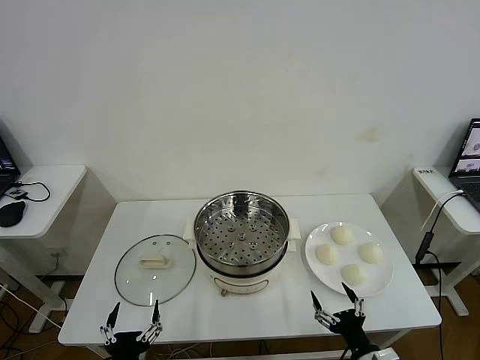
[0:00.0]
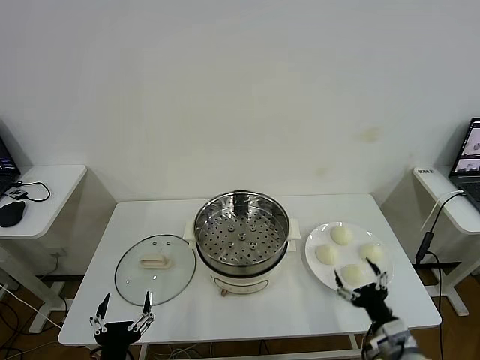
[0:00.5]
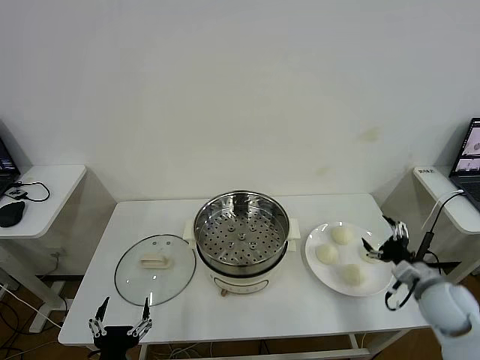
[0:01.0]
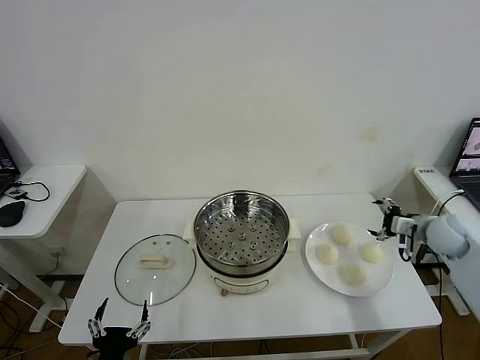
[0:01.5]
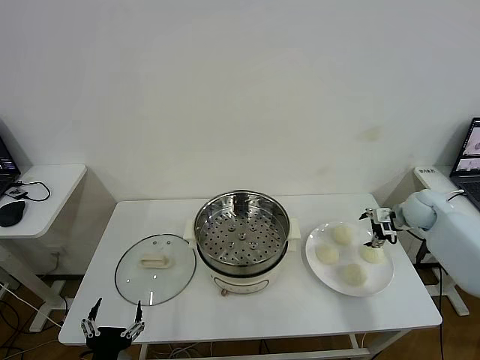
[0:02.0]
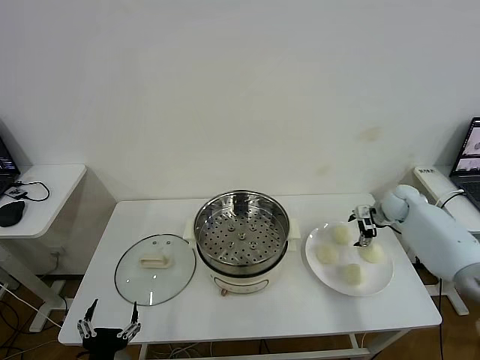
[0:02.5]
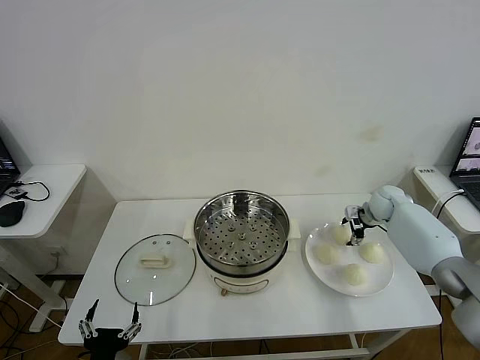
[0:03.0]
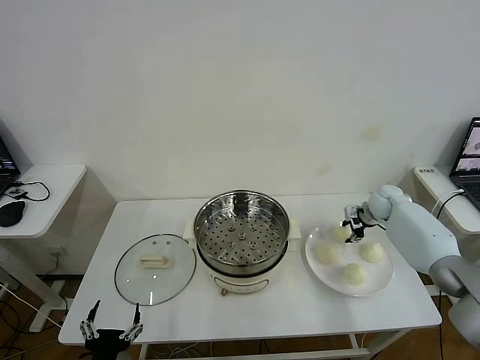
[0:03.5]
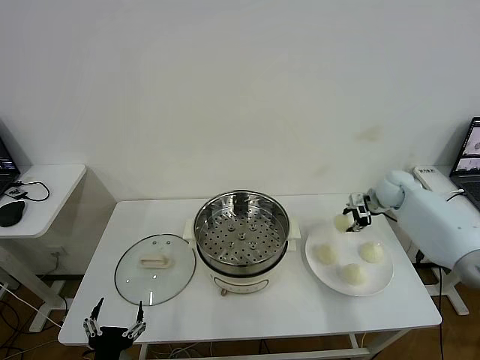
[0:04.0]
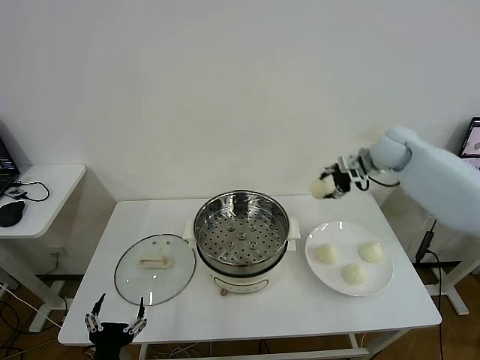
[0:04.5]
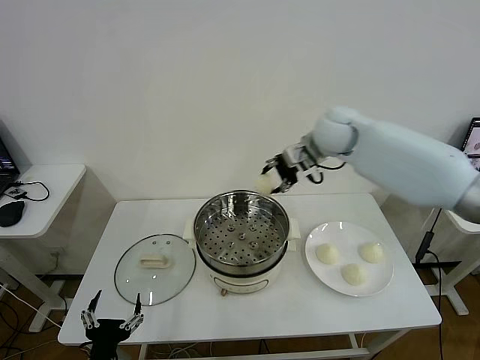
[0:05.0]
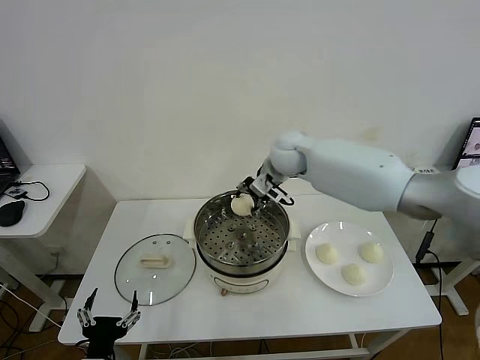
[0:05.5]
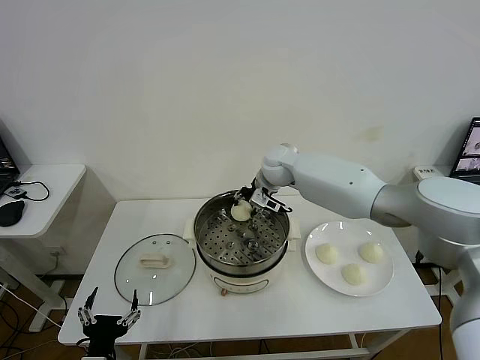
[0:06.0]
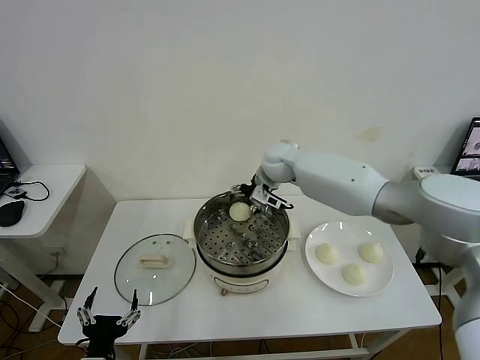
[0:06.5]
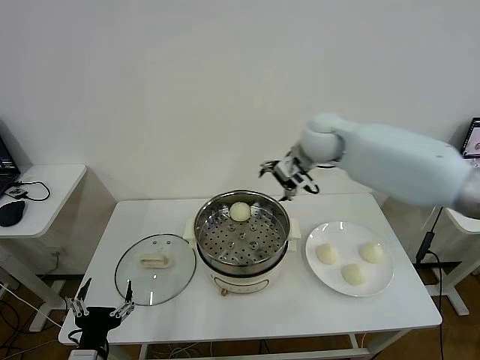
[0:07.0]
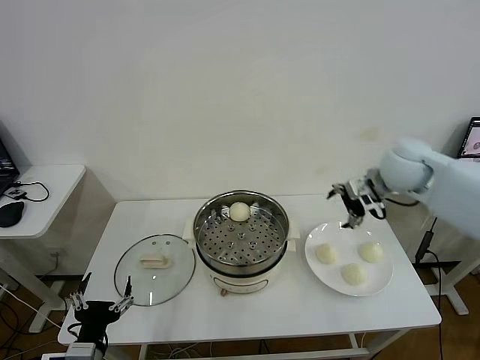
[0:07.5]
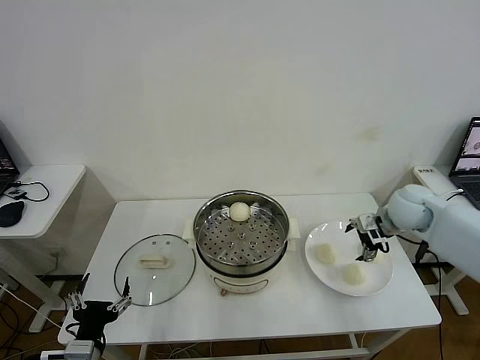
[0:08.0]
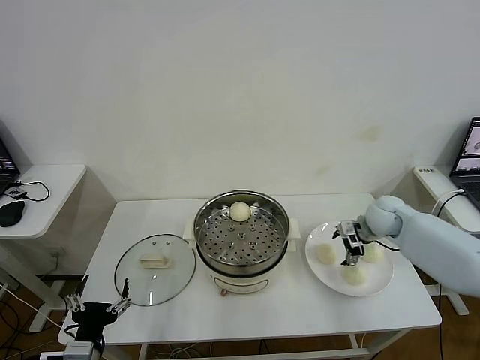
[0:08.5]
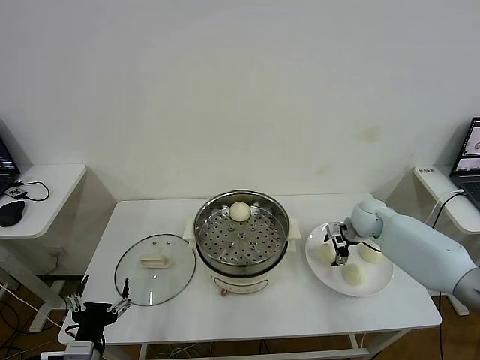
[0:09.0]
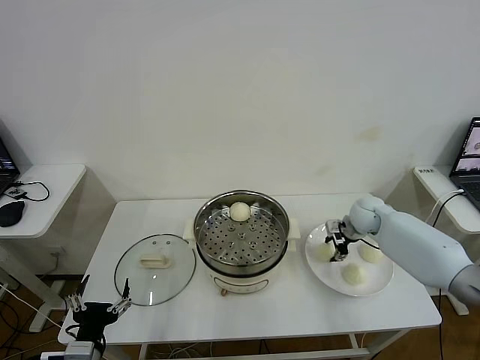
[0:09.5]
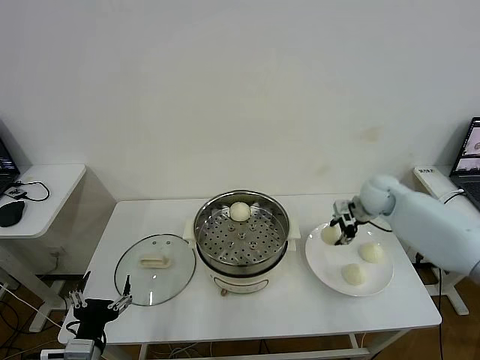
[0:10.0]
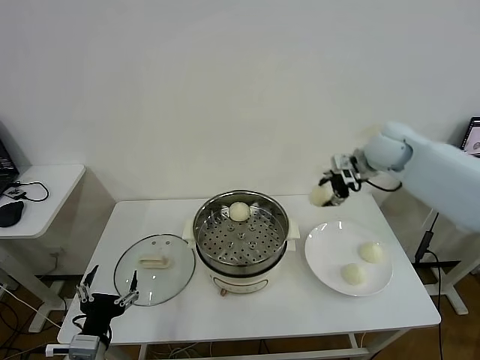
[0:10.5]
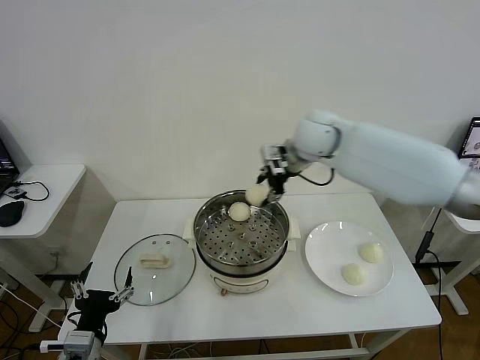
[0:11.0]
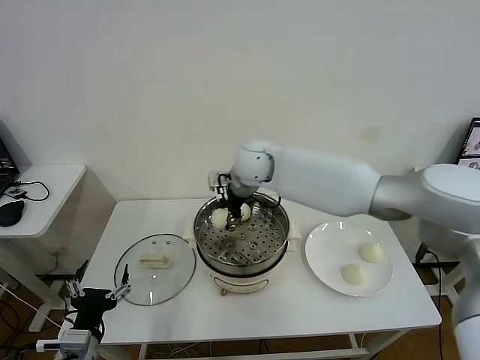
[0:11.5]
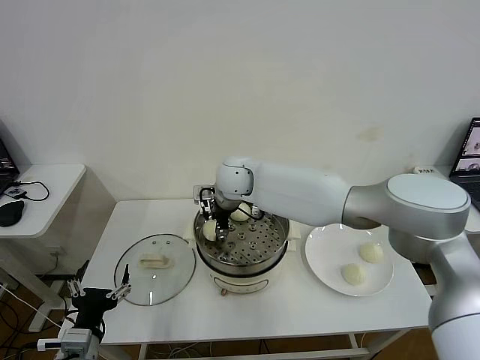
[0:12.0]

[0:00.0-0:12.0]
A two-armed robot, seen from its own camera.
Task of the whole recording: take steamed baozi put them in steamer then cover it.
Step, 0:00.0 to 0:03.5: Grasp the baozi in the plate with right gripper.
Step, 0:04.0 to 0:06.0: Place the baozi on the steamer with right gripper.
Step, 0:06.5 to 0:09.5: Grasp the baozi in the plate with right gripper.
0:02.0 to 0:04.0: The right gripper moves upward and to the left, about 10 cm, and closes up.
0:04.0 to 0:06.0: The right gripper shifts some 30 cm to the left.
0:06.0 to 0:08.0: The right gripper moves to the right, some 30 cm, and opens.
0:08.0 to 0:10.0: The right gripper is displaced forward by roughly 5 cm, moves about 10 cm downward and comes back, and closes its fingers.
0:10.0 to 0:12.0: The right gripper travels to the left by some 35 cm.

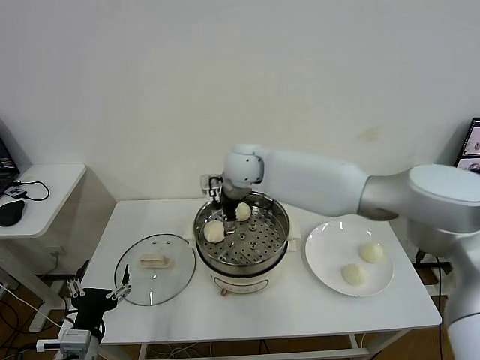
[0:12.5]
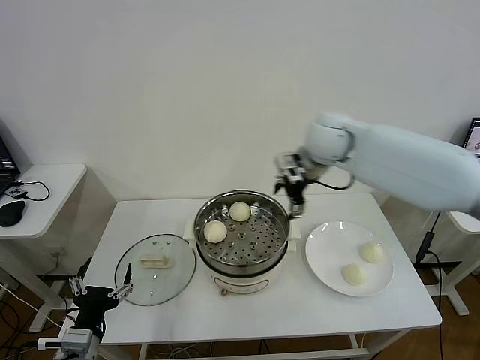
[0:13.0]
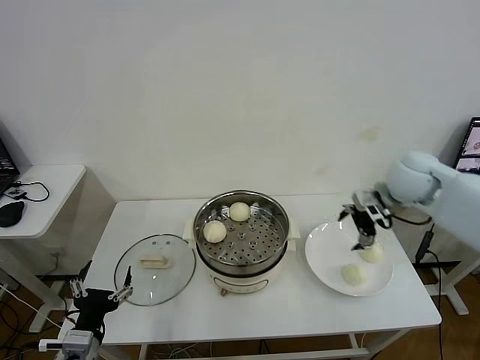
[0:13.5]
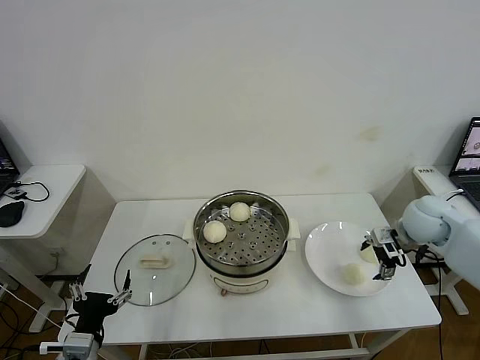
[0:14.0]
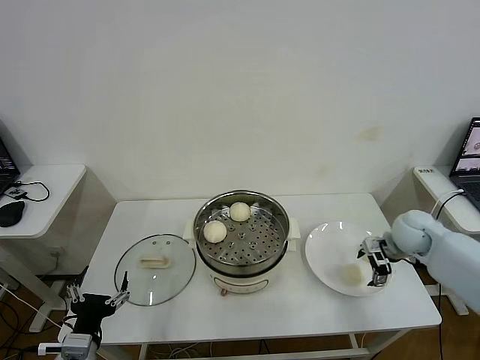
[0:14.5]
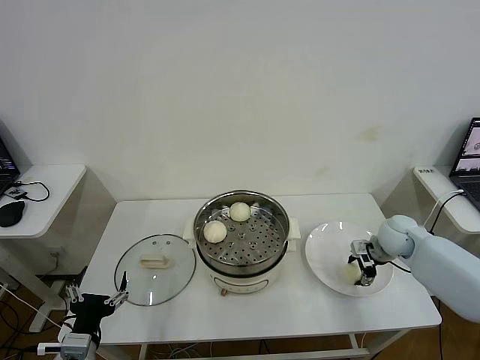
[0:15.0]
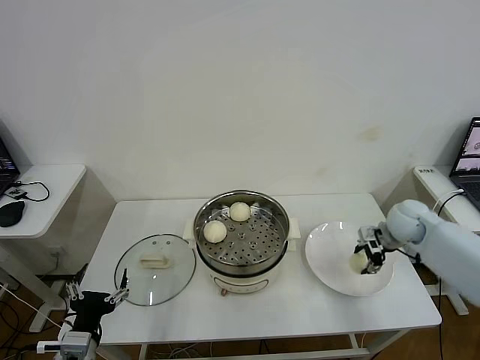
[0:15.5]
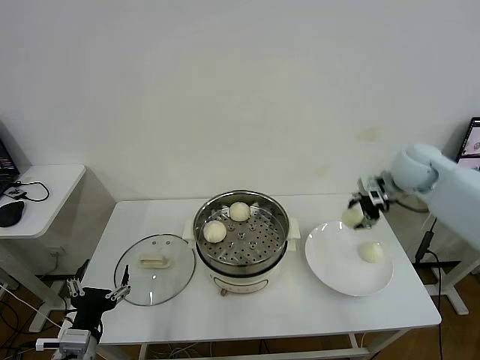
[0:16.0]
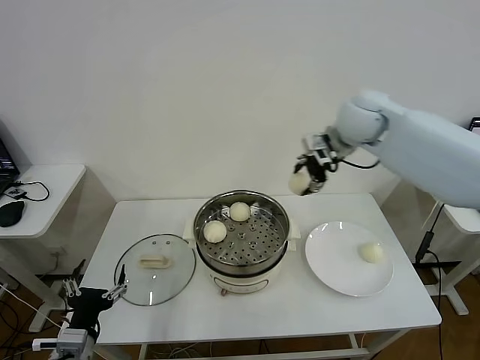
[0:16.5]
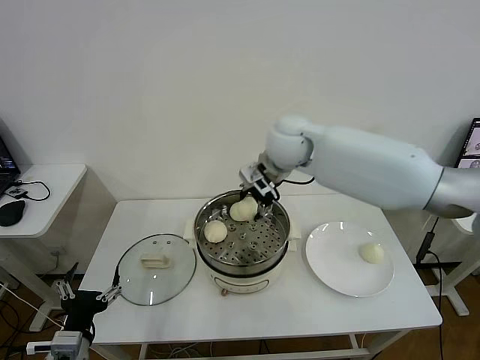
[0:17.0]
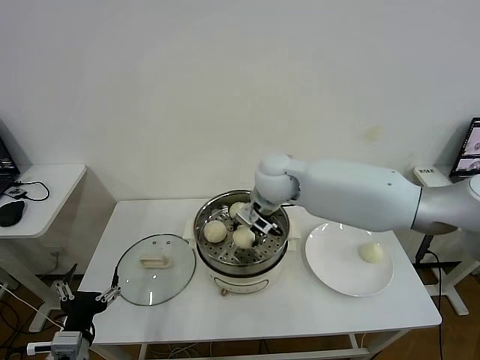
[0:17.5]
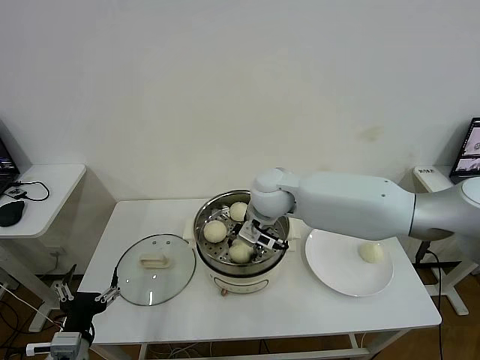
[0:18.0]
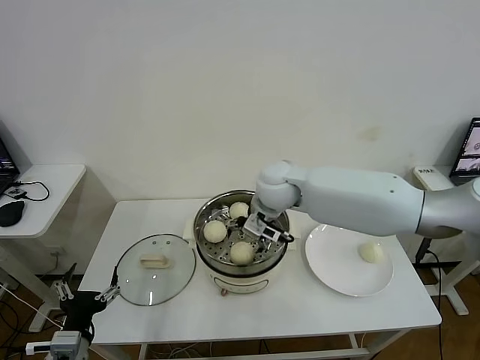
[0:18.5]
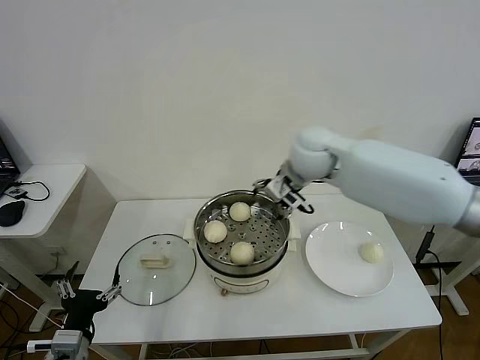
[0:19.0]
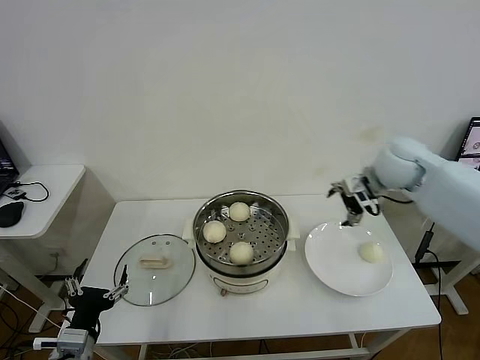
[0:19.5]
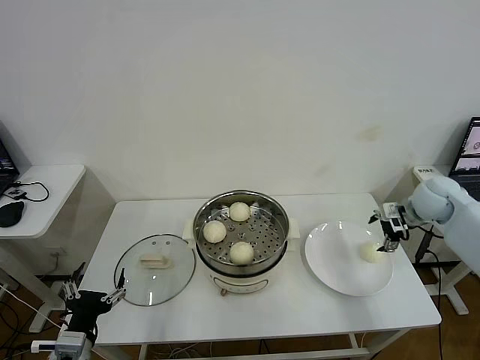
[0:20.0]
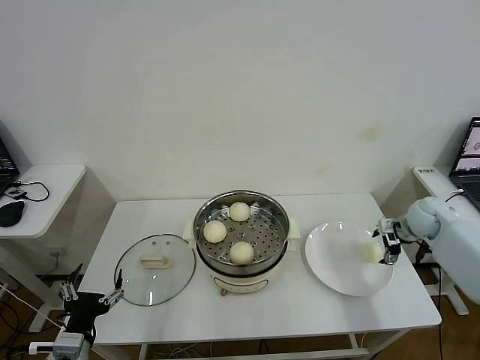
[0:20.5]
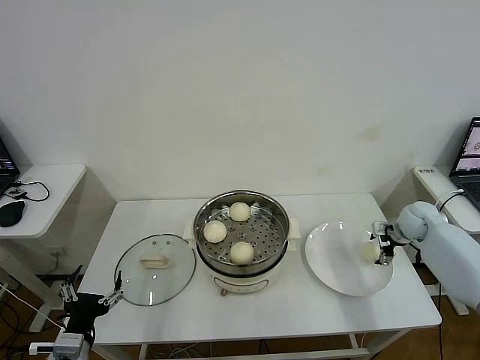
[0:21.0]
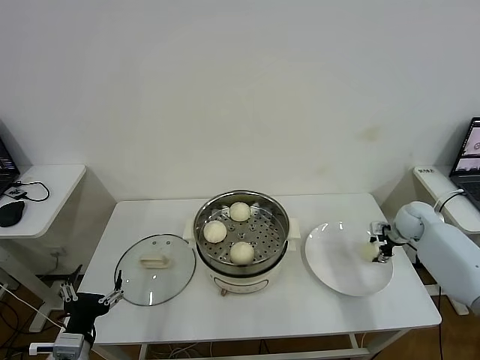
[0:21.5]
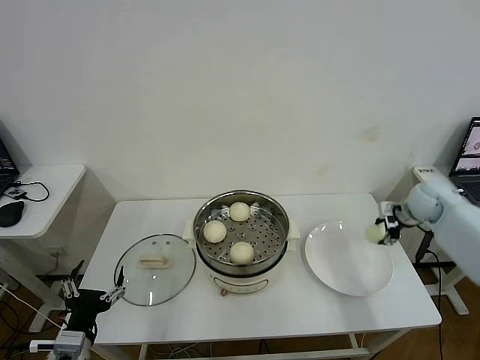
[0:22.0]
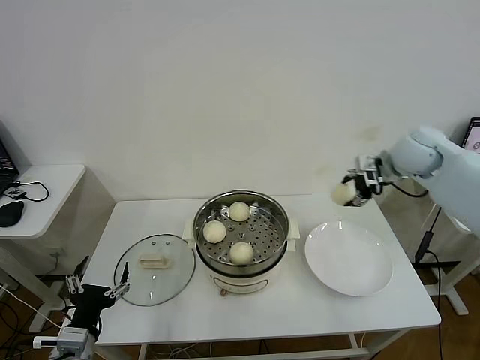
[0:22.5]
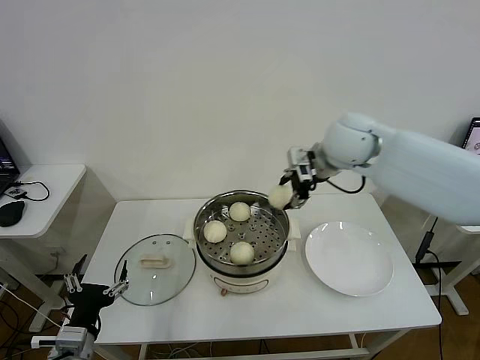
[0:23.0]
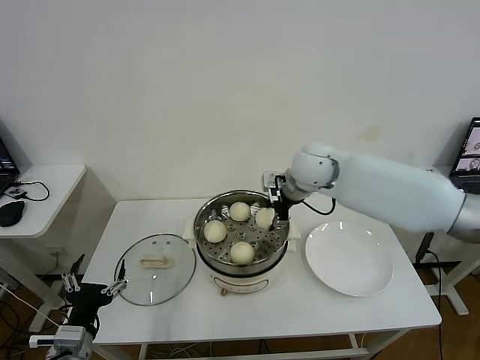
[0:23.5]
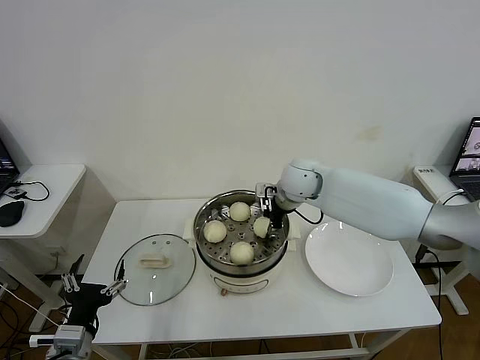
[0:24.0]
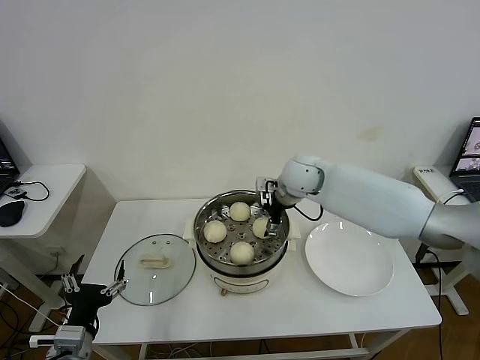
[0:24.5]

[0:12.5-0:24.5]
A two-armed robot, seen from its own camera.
Task of the whole recording: take steamed baozi put them in steamer then cover it.
Step, 0:12.5 to 0:15.0: Grasp the baozi in the plate with right gripper.
Step, 0:15.5 to 0:18.0: Place the baozi on the steamer with right gripper.
Step, 0:18.5 to 0:21.5: Grasp the baozi in the plate with right gripper.
0:12.5 to 0:14.5: The right gripper travels to the right and downward by some 40 cm.
0:14.5 to 0:16.5: The right gripper travels upward and to the left by some 30 cm, and closes up.
0:16.5 to 0:18.5: The right gripper moves to the left, downward and backward, approximately 20 cm, and opens up.
0:18.5 to 0:20.5: The right gripper moves to the right, some 40 cm.
0:20.5 to 0:22.5: The right gripper shifts some 25 cm upward and to the left, and closes up.
0:22.5 to 0:24.5: The right gripper is displaced to the left by roughly 20 cm, and opens its fingers.

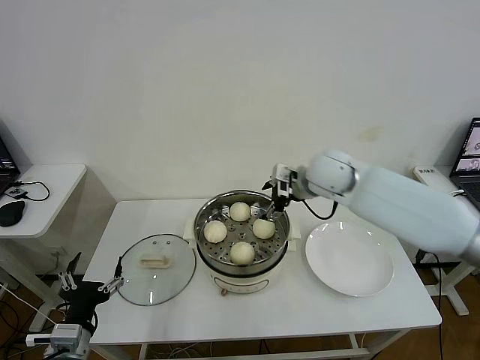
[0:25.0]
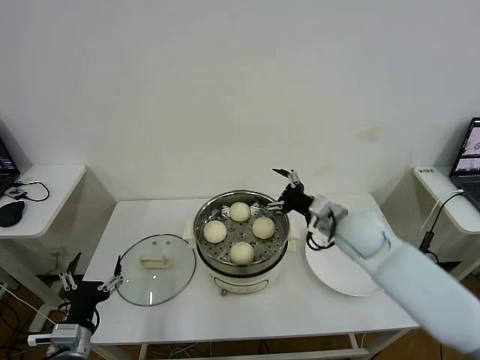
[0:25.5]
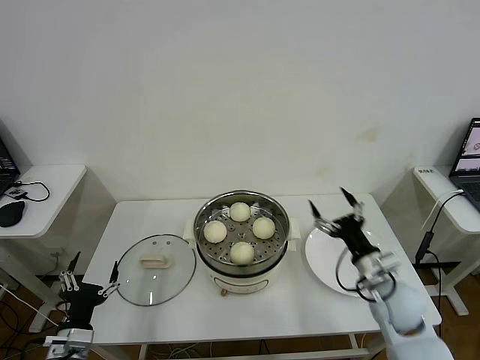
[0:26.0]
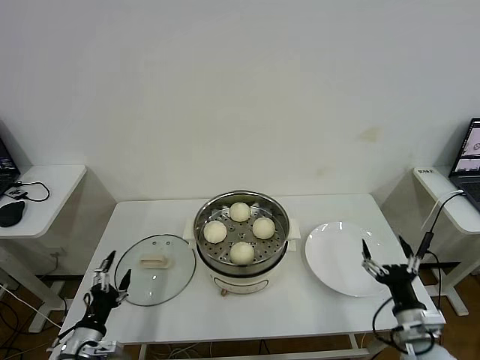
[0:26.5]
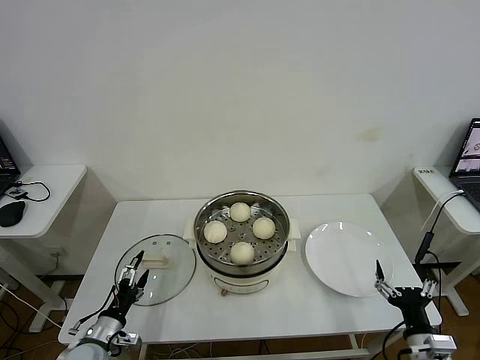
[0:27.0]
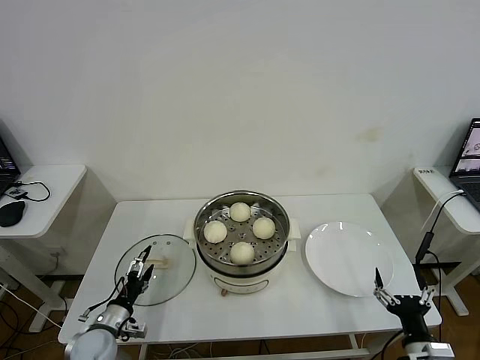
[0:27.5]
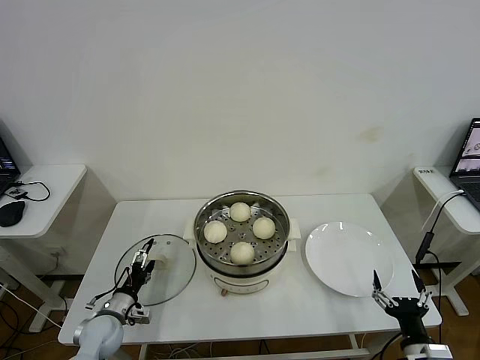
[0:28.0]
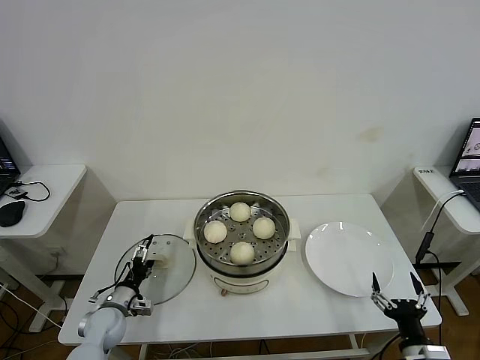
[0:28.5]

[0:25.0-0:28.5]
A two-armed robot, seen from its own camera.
Task of the whole recording: take steamed baozi put them in steamer then cover it.
0:25.0 to 0:27.0: The left gripper goes roughly 15 cm downward and forward. Meanwhile the right gripper travels backward, downward and to the right by about 50 cm.
0:27.0 to 0:28.5: The left gripper is displaced forward by roughly 10 cm.
